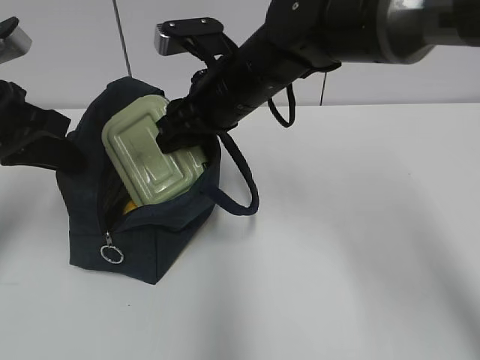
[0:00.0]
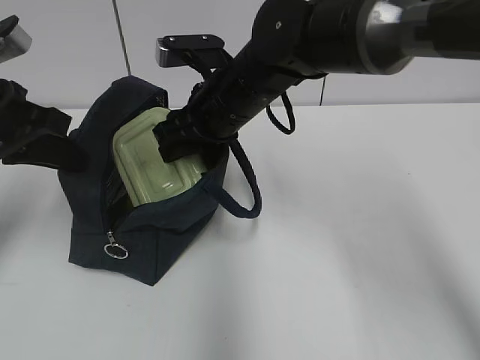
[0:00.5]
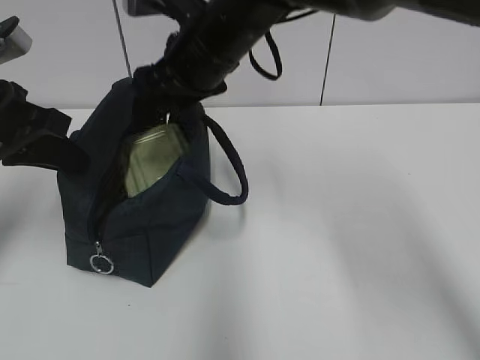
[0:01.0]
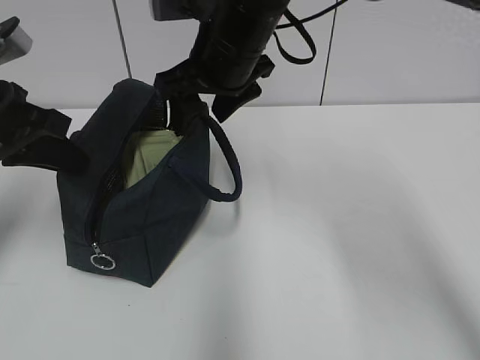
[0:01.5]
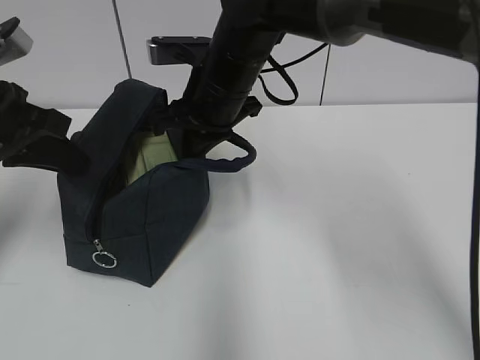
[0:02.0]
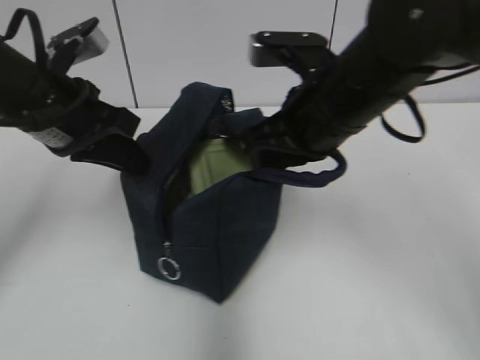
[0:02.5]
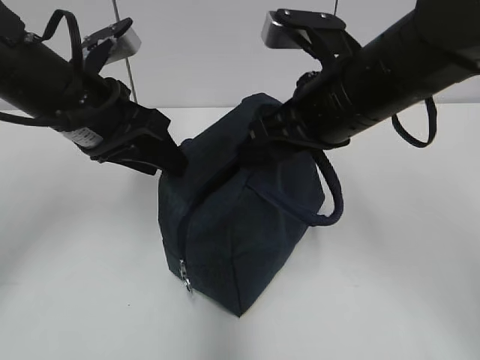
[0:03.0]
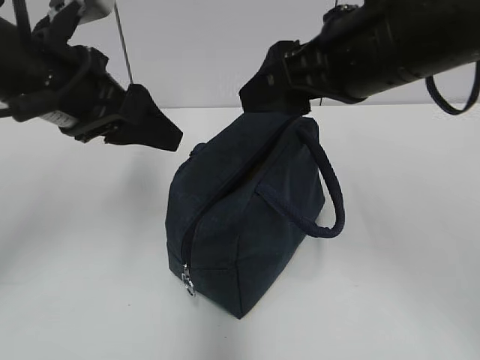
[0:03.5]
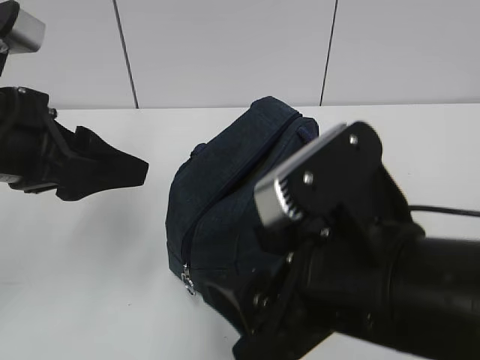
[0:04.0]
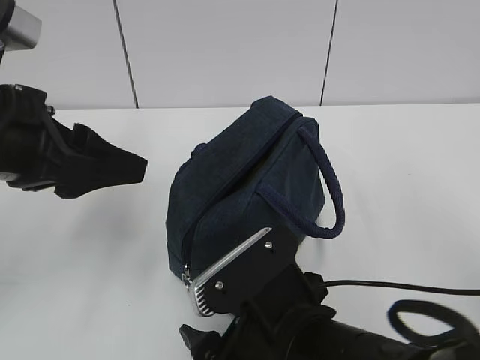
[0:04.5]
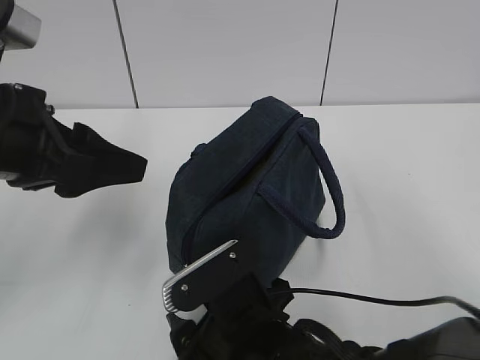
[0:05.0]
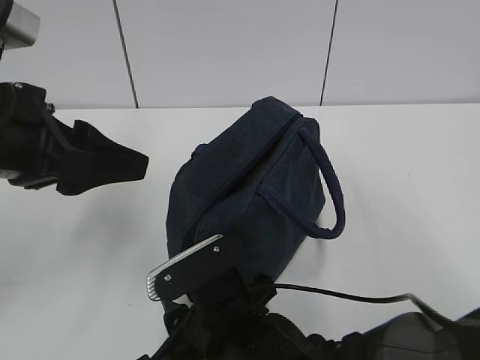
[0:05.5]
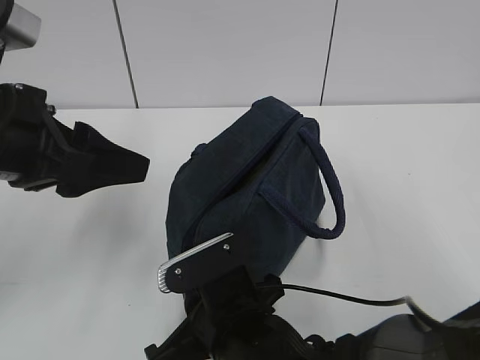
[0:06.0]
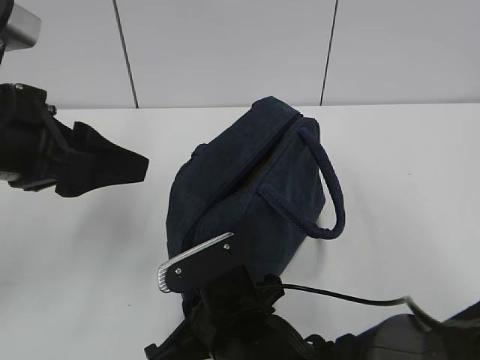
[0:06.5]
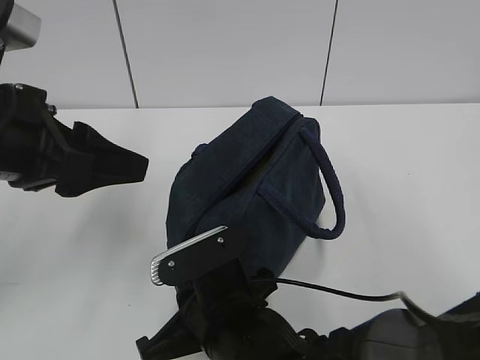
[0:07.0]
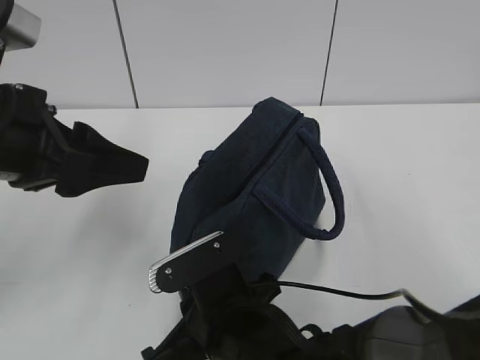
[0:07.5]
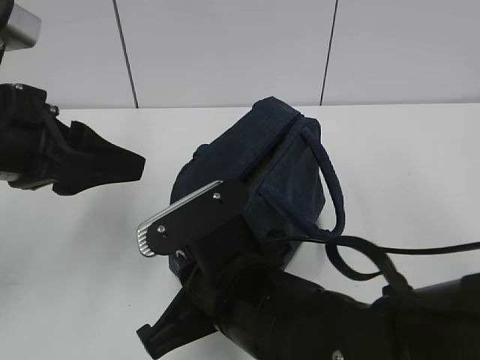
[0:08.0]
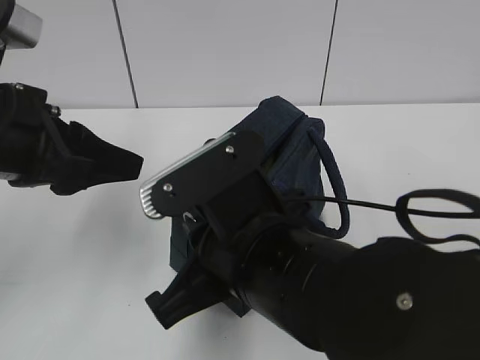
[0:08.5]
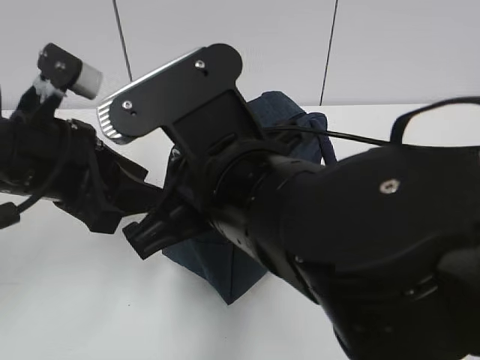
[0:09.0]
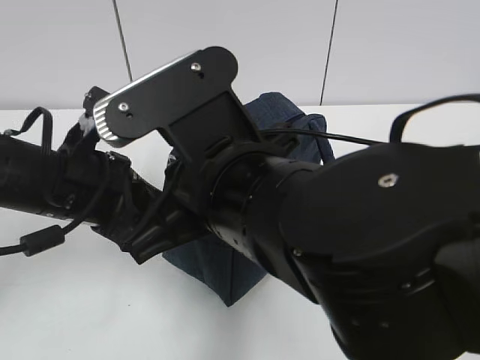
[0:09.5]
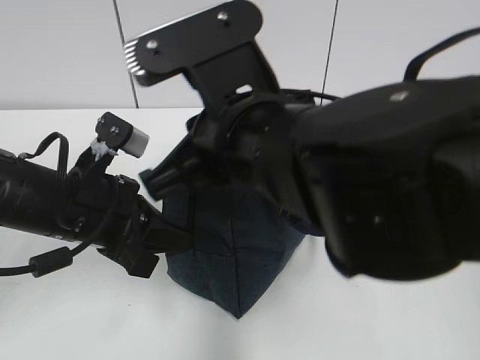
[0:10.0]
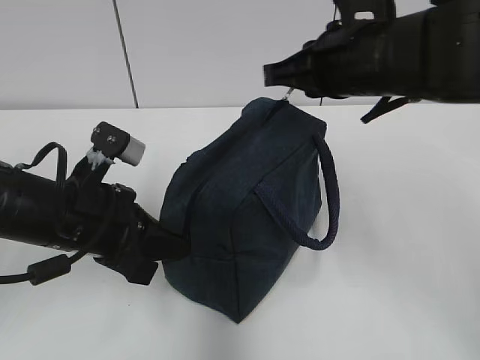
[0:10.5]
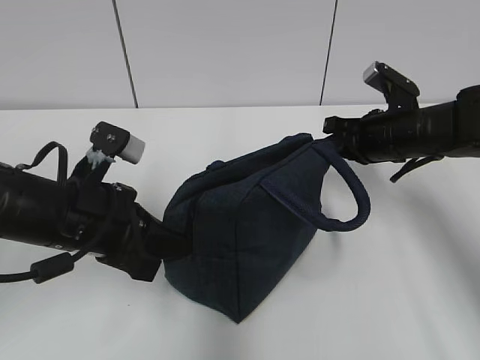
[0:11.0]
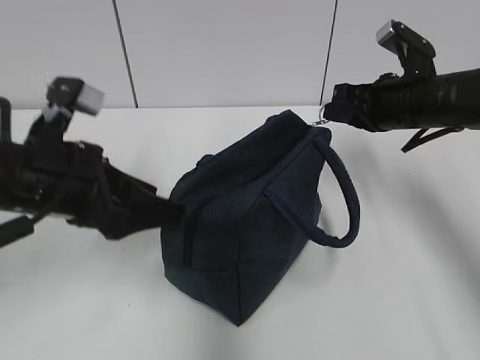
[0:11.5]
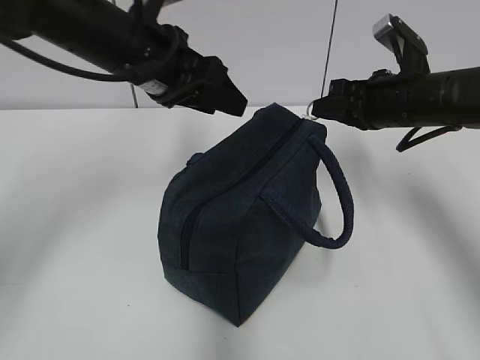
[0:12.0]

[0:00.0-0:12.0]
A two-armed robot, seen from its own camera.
Step, 0:02.5 to 0:03.5: Move the lunch bag to the right.
Step, 0:04.0 to 0:09.5: Grab the lunch bag with your left hand.
0:00.0 to 0:02.0: The right gripper closes up.
0:02.0 to 0:04.0: The right gripper heads backward, covering approximately 25 cm, and opens its fingers. The left gripper heads backward and to the right, covering roughly 10 cm, and opens up.
0:04.0 to 0:06.0: The right gripper is displaced downward and to the left by some 15 cm, and closes up.
0:06.0 to 0:08.0: The right gripper is displaced upward by about 10 cm.
0:08.0 to 0:10.0: The right gripper travels upward by about 10 cm. Meanwhile the left gripper moves downward, about 10 cm, and closes up.
0:10.0 to 0:12.0: The left gripper travels forward, upward and to the right by roughly 15 cm, and opens its fingers. The right gripper goes about 25 cm to the right and forward.

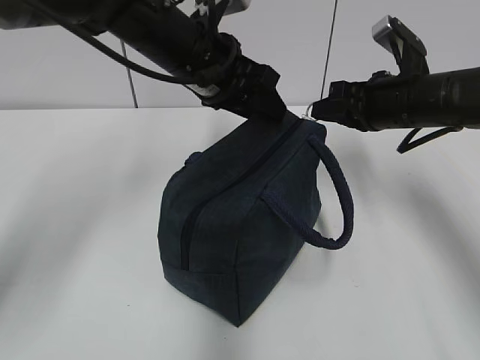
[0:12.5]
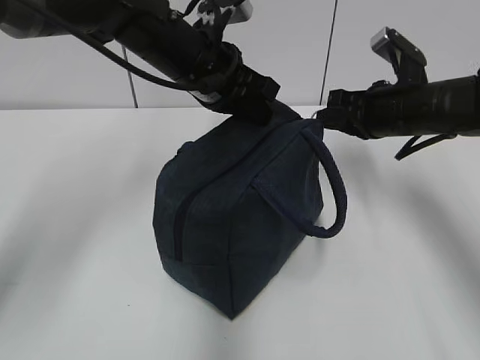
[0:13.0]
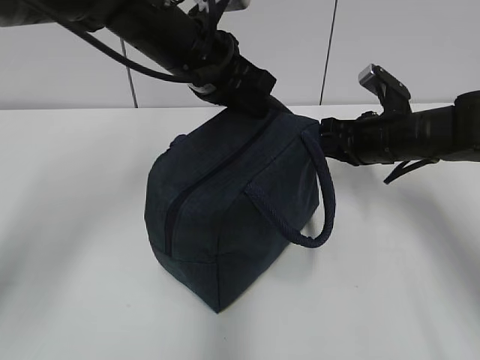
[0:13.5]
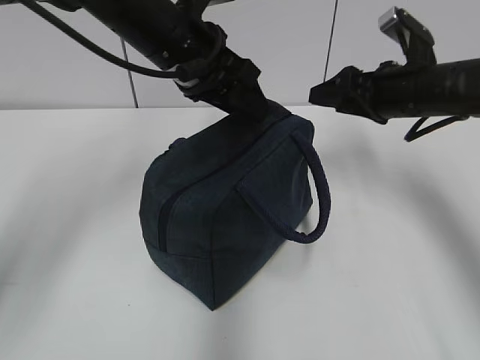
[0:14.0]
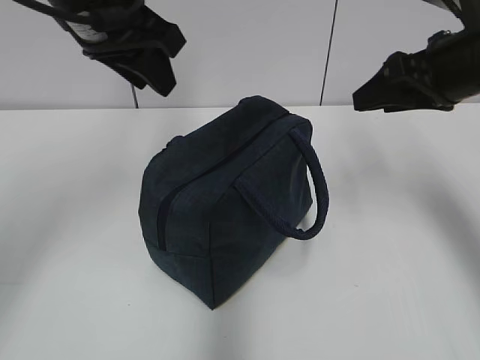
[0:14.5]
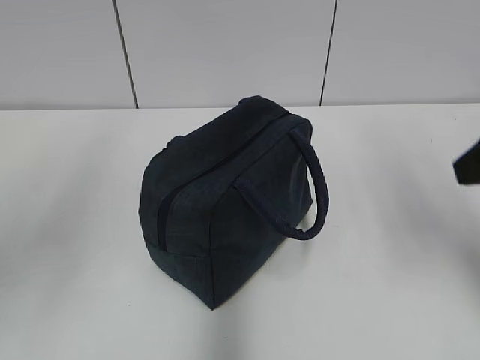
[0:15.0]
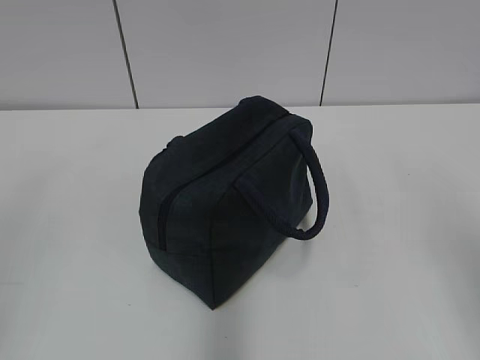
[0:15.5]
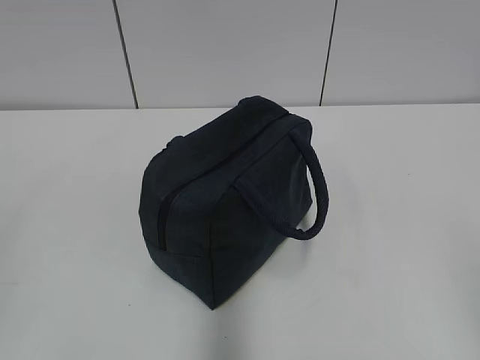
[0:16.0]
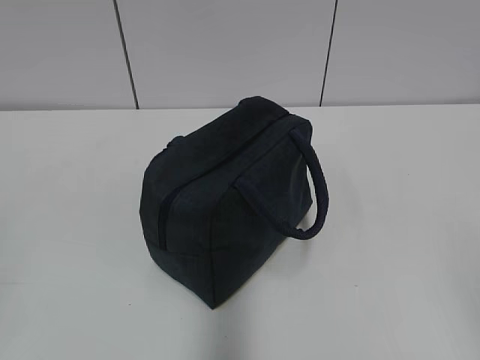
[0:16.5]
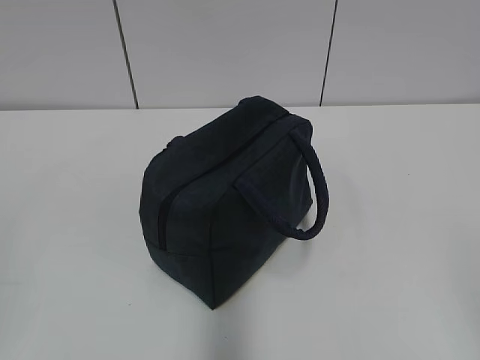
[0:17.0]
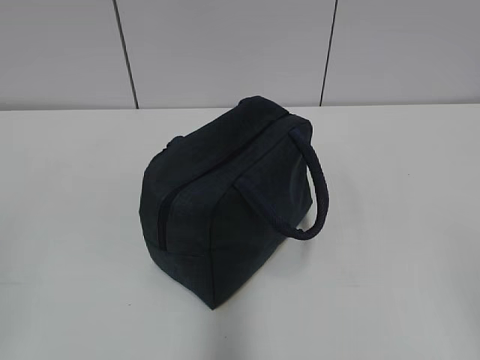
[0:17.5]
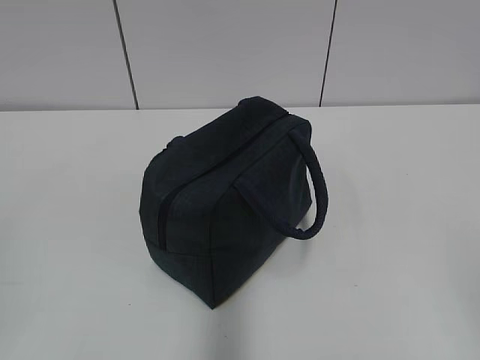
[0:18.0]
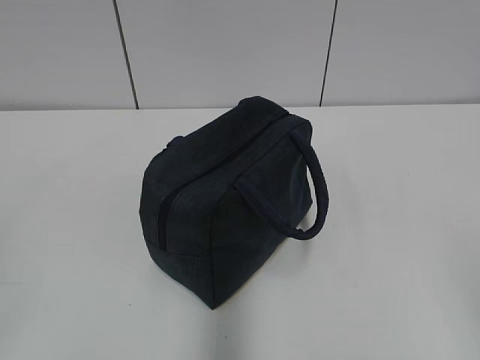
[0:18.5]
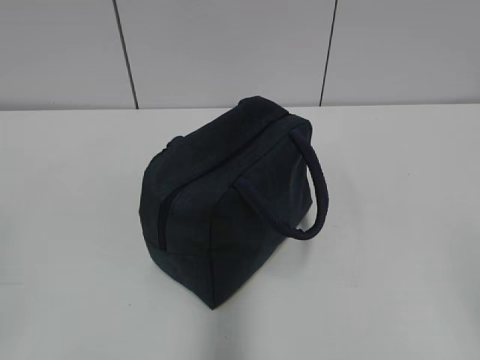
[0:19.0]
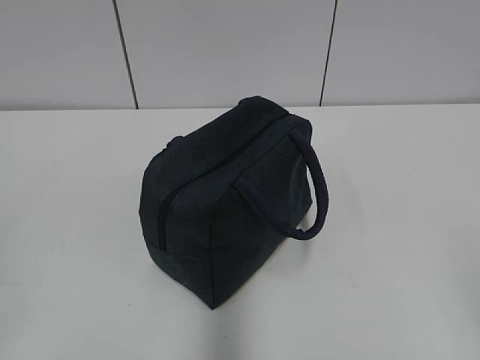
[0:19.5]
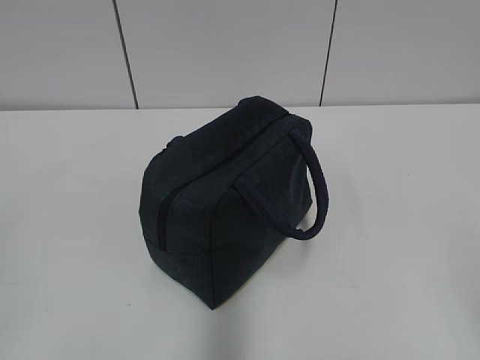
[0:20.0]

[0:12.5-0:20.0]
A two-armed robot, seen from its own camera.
0:12.5 to 0:14.5: The left gripper moves upward, to the left and backward, approximately 15 cm, and closes, then opens again. The right gripper is displaced upward and backward by roughly 10 cm, and opens.
0:14.5 to 0:16.5: The right gripper travels backward by some 35 cm. The left gripper moves backward and to the left, roughly 40 cm.
